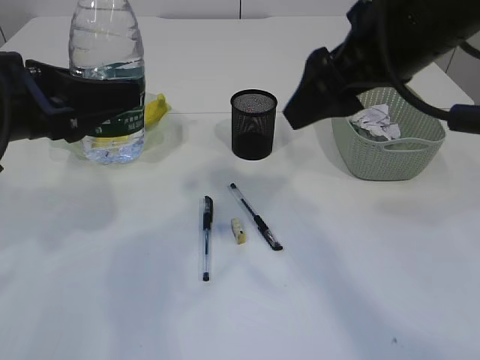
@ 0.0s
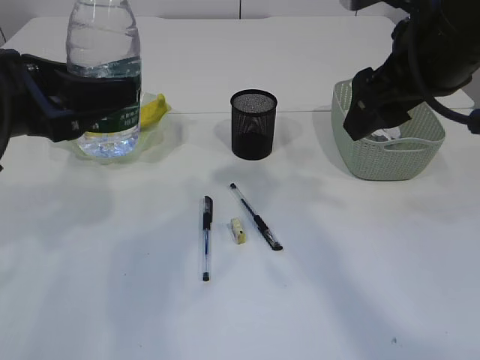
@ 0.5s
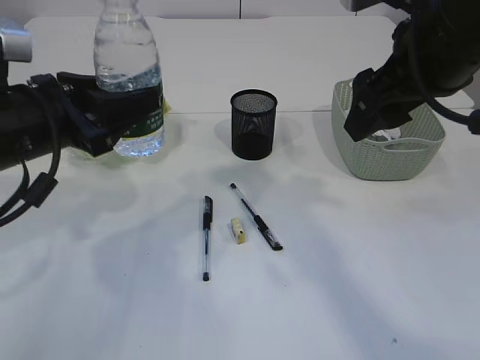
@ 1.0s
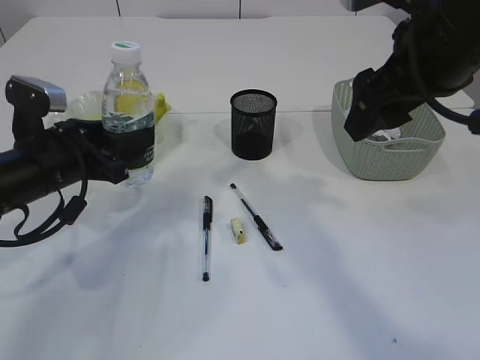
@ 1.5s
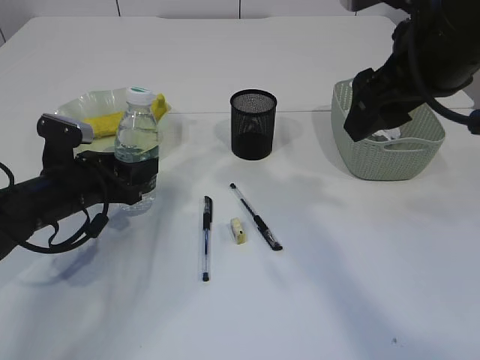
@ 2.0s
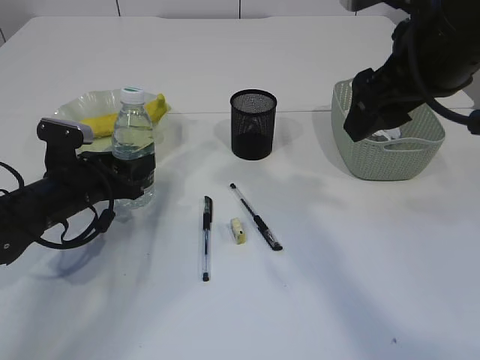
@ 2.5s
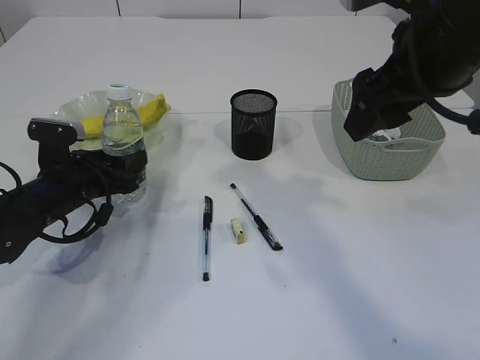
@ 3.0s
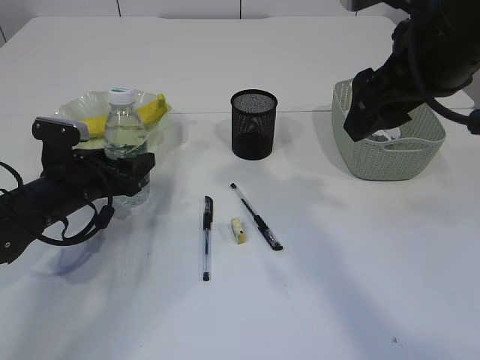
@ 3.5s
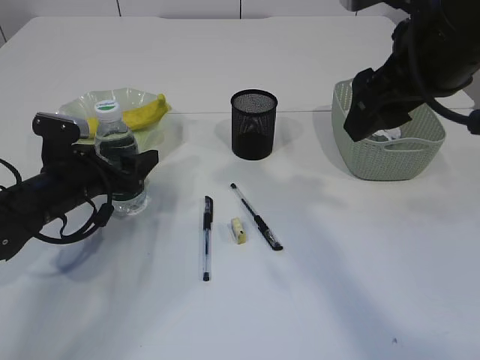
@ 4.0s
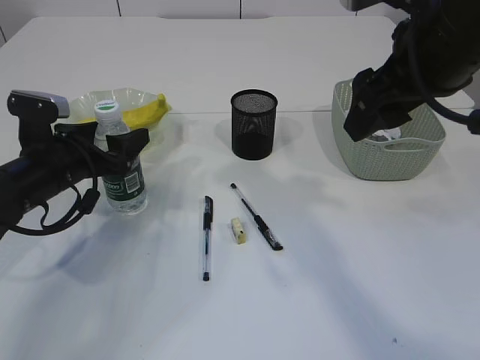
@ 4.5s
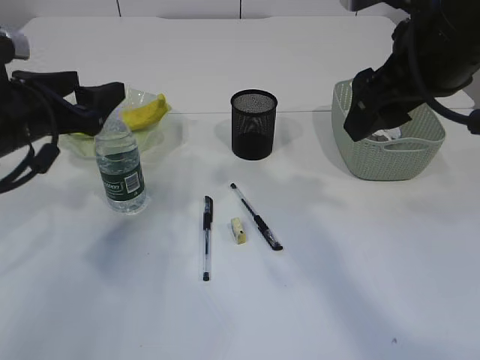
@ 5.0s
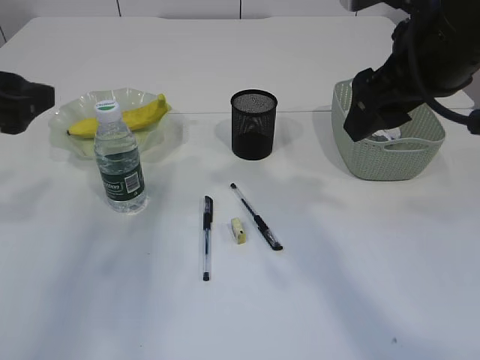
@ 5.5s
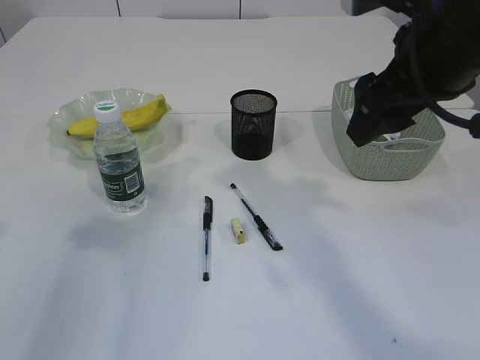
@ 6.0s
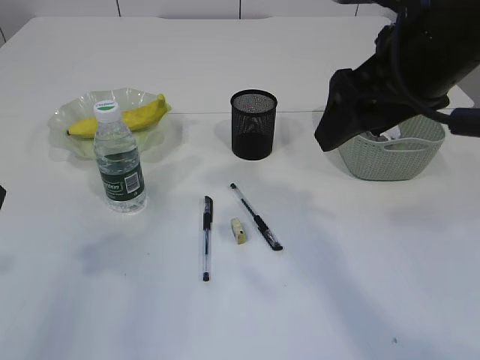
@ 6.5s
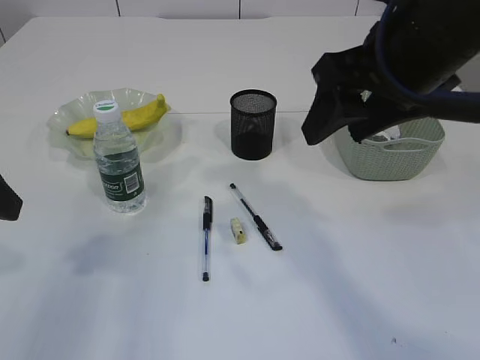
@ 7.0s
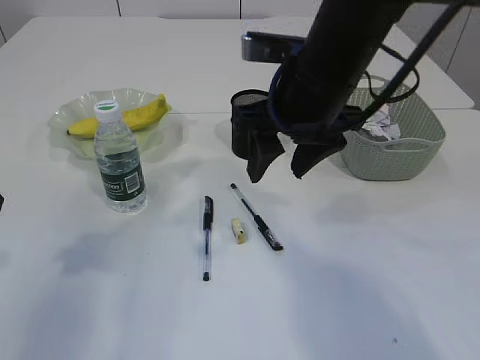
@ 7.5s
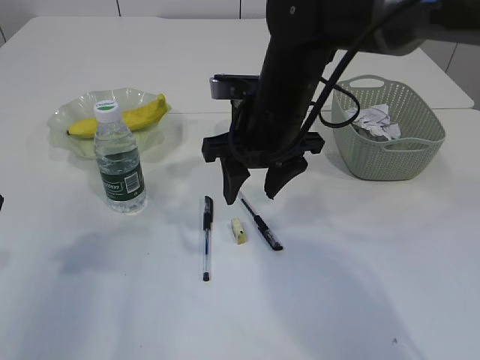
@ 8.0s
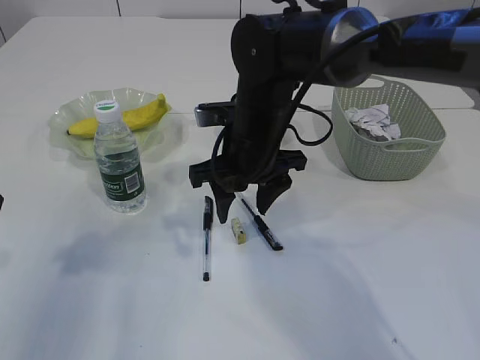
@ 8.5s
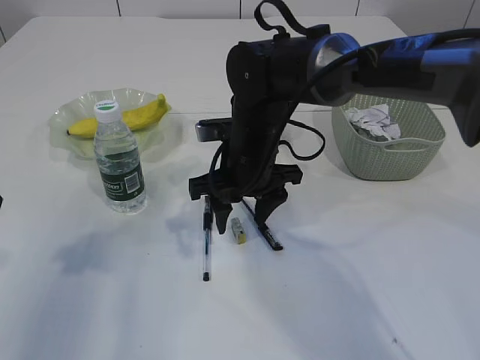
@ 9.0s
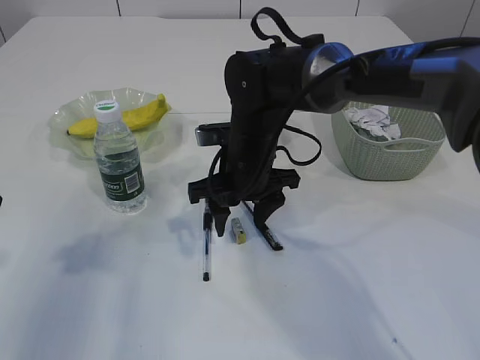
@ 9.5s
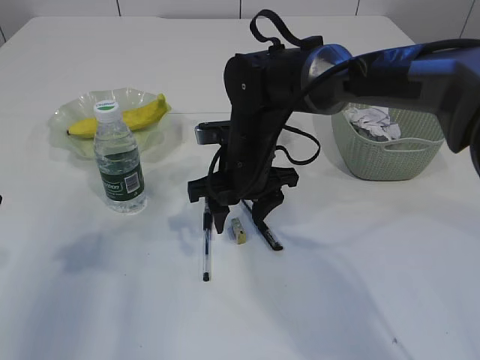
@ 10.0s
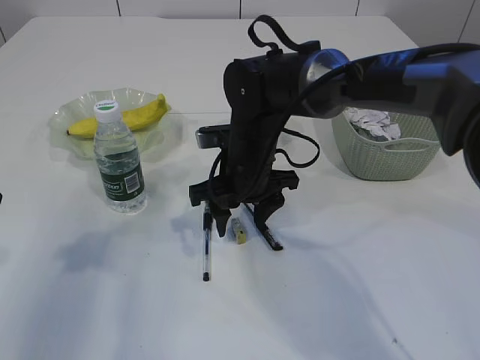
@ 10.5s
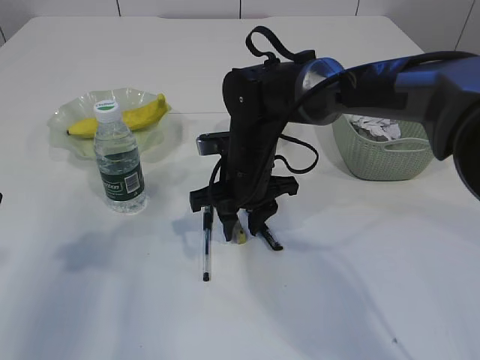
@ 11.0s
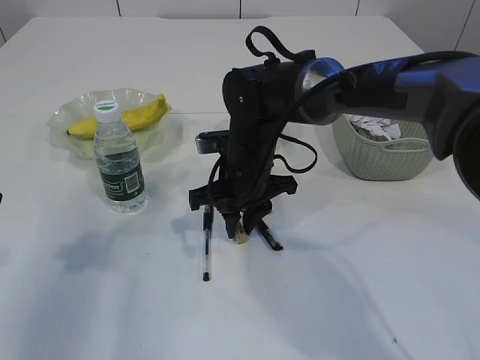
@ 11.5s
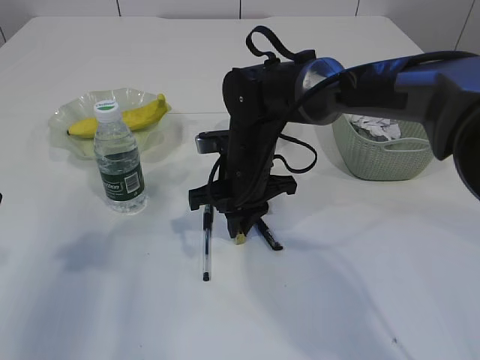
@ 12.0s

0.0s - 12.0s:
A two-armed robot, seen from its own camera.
Step, 0.0s - 5.0s: Place the bottle.
0.0s - 2.0s: The left gripper heads downward and forward, covering roughly 20 cm.
2.0s - 4.0s: The left gripper opens.
4.0s - 6.0s: The left gripper is displaced upward and backward by approximately 25 cm.
6.0s - 8.0s: The right gripper travels to the left, downward and forward by some 20 cm.
8.0s - 10.0s: The right gripper heads downward, covering approximately 5 cm.
10.0s - 12.0s: The right gripper closes up.

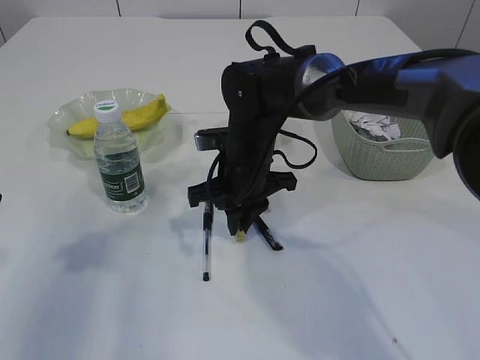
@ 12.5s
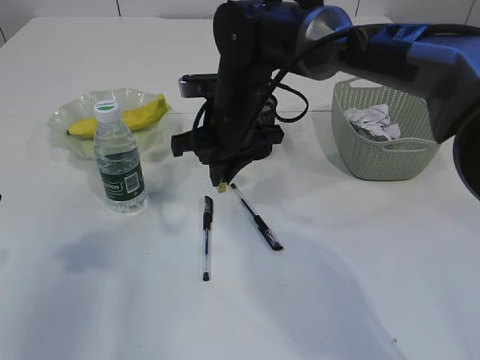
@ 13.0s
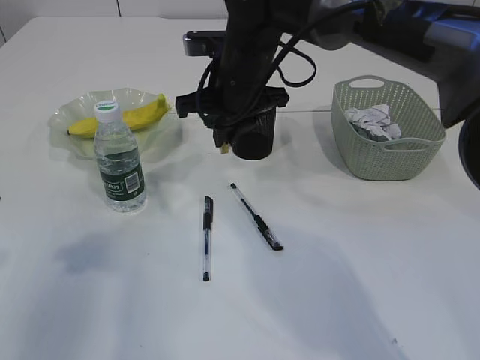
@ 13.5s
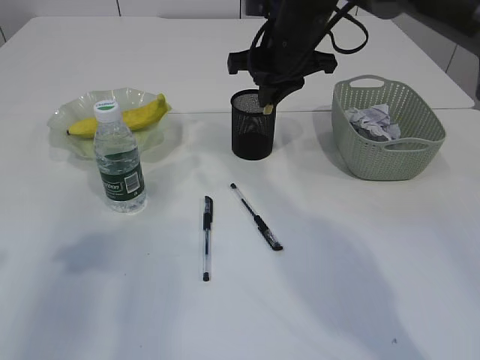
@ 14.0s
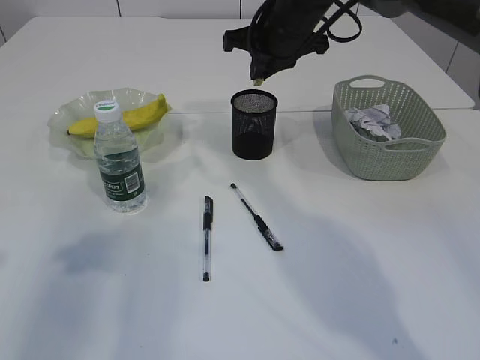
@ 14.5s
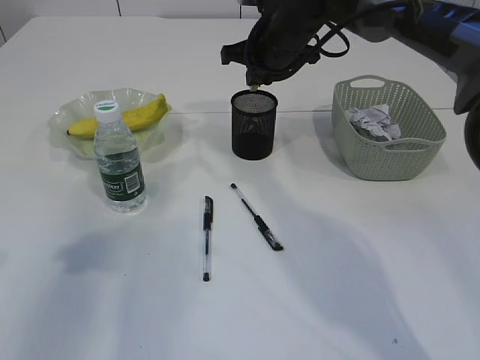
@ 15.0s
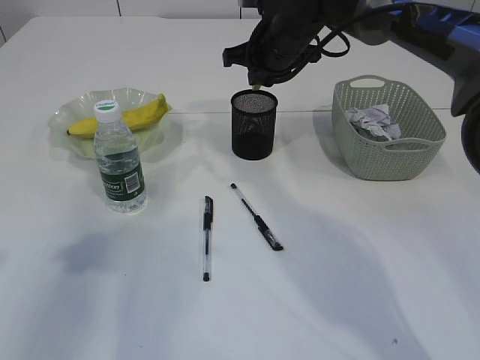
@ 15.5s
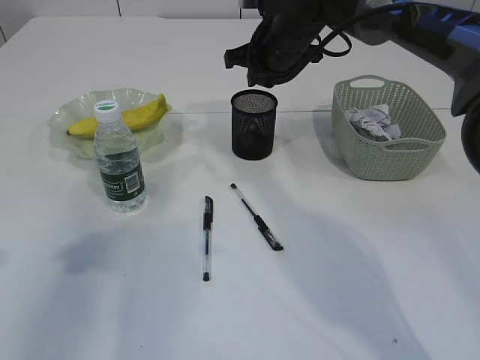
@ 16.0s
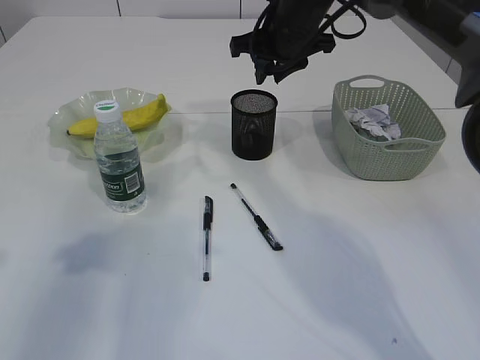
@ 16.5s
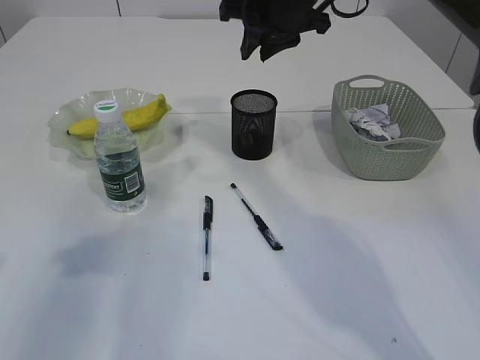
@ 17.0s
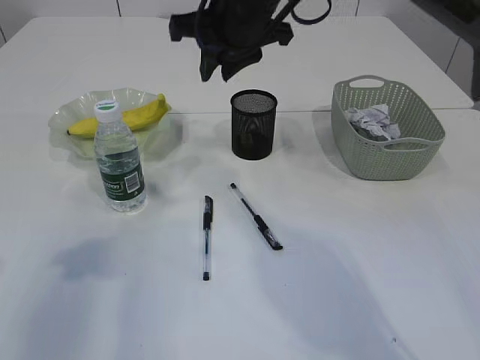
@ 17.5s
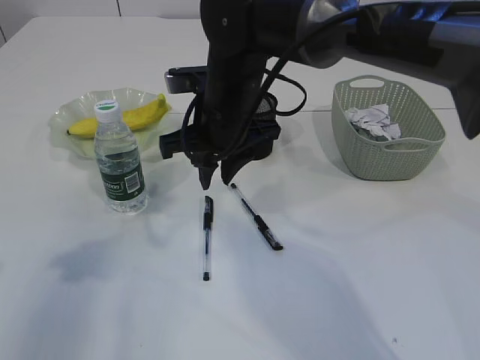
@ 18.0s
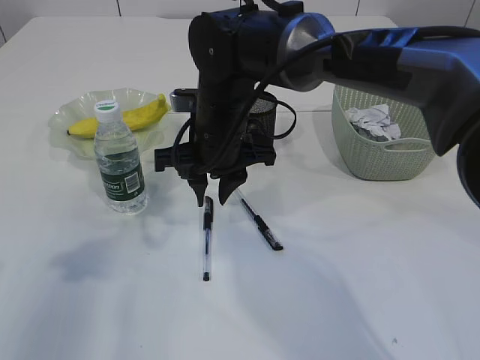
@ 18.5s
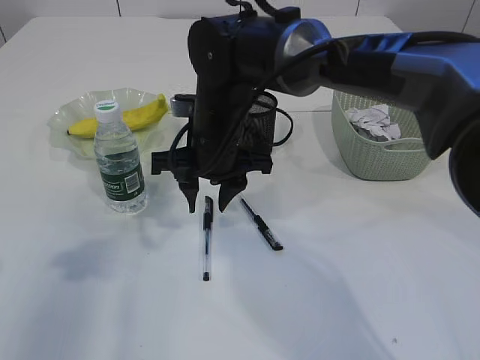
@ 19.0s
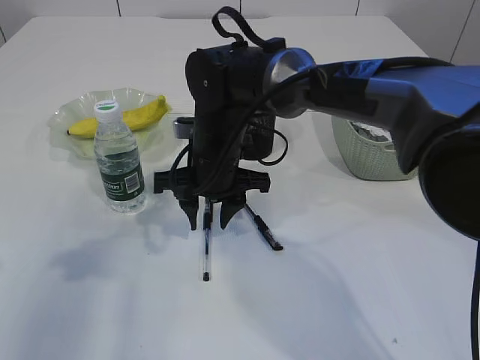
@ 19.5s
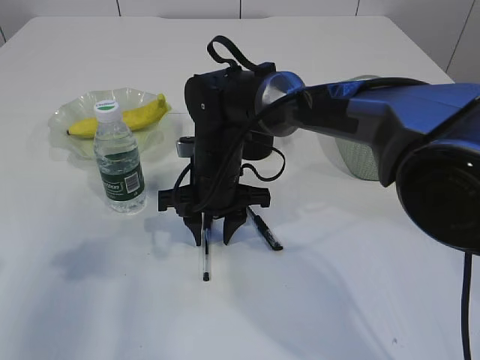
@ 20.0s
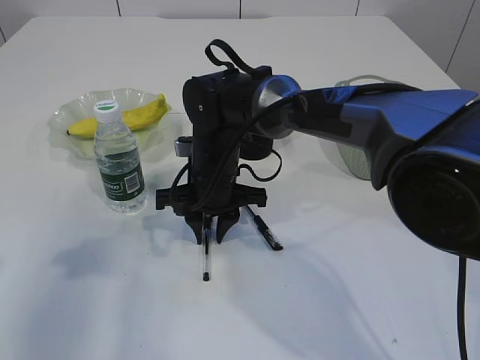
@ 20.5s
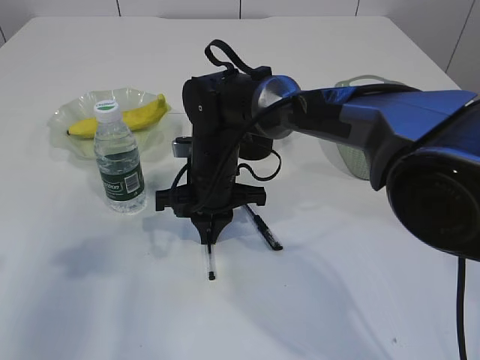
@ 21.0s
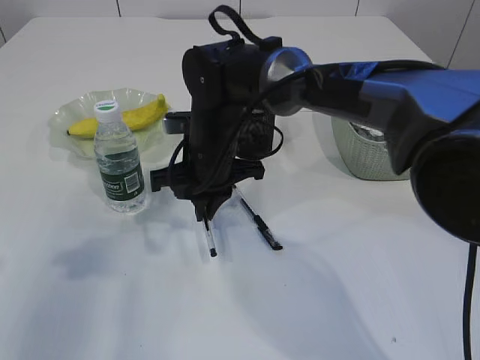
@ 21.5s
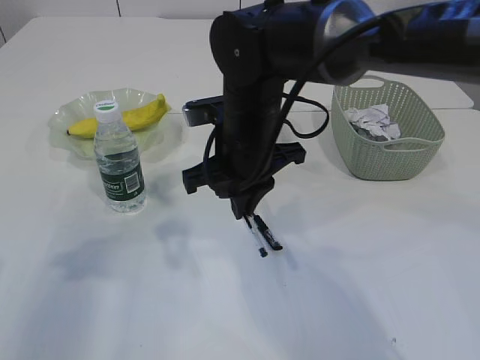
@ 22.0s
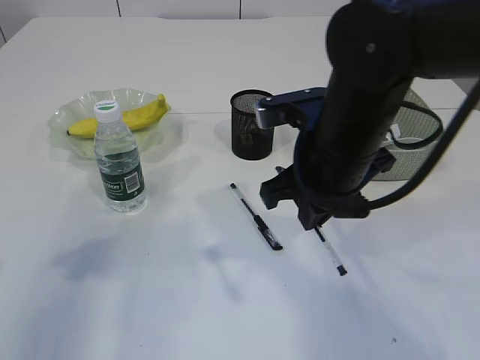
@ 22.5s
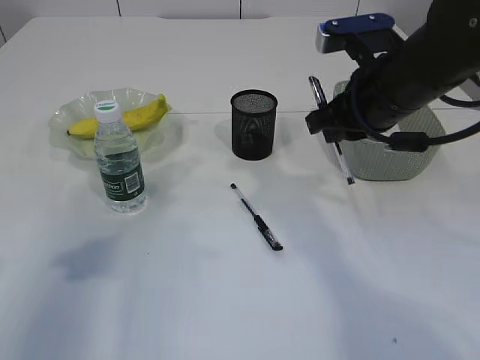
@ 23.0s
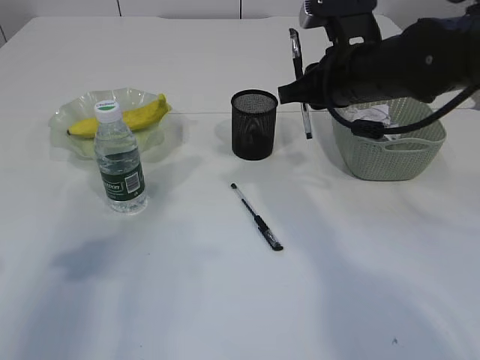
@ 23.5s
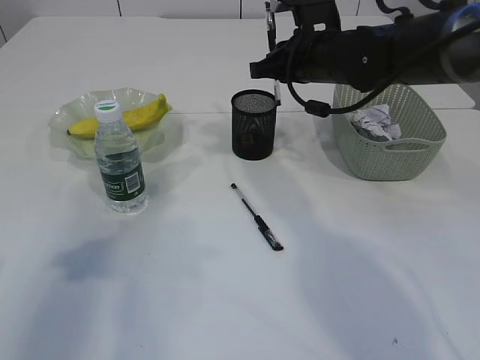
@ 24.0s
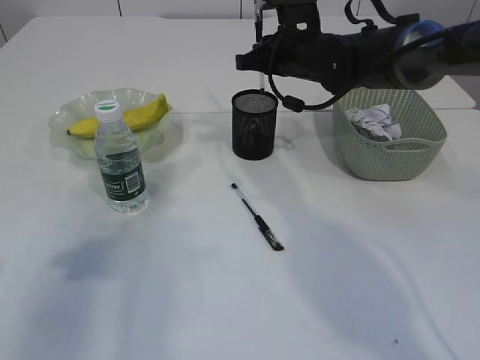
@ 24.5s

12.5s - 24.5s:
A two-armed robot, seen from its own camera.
Step, 13.0s - 16.5s: Place the eraser into the pen holder.
Step, 17.0s - 21.5s: Pick up the pen with right arm.
12.5s - 14.5s: The right gripper goes about 20 cm upward, forward and to the right.
14.5s - 16.5s: There are only small adjustments of the grippers.
16.5s - 18.5s: The right gripper moves backward, to the left and downward, approximately 15 cm.
18.5s - 20.5s: The right gripper moves downward, approximately 5 cm.
20.5s - 22.5s: The right gripper is displaced to the right, upward and backward by about 20 cm, and closes.
22.5s - 24.5s: The right gripper is displaced forward by approximately 20 cm.

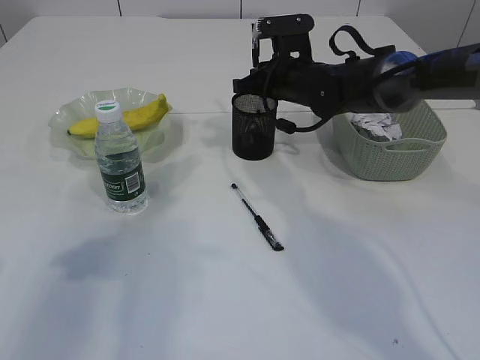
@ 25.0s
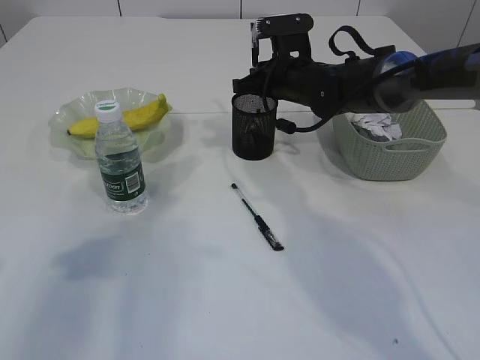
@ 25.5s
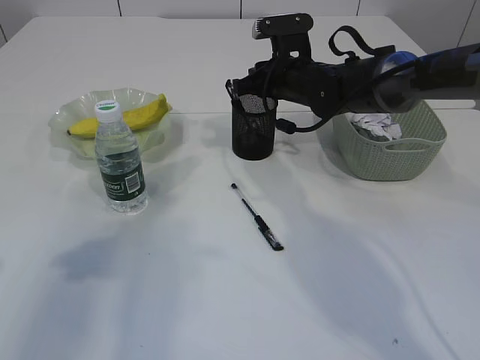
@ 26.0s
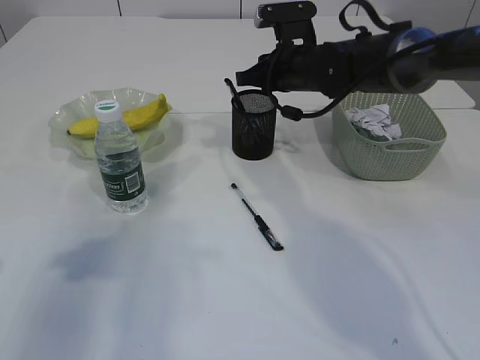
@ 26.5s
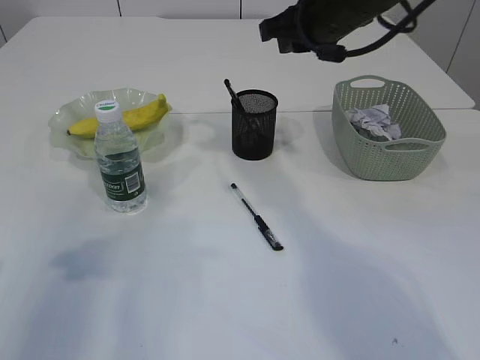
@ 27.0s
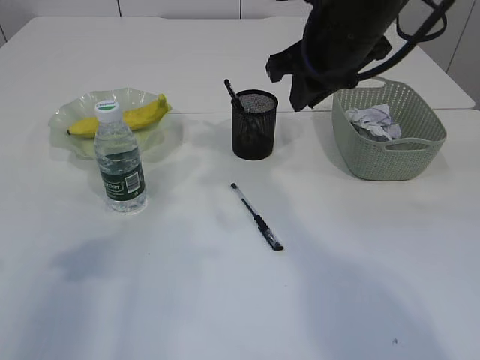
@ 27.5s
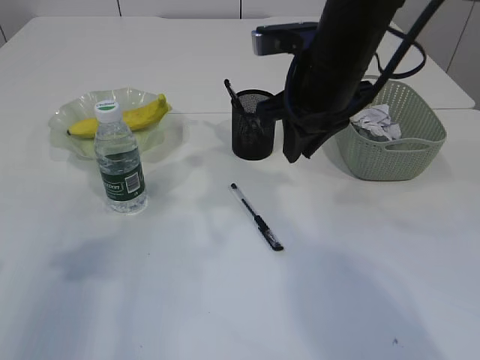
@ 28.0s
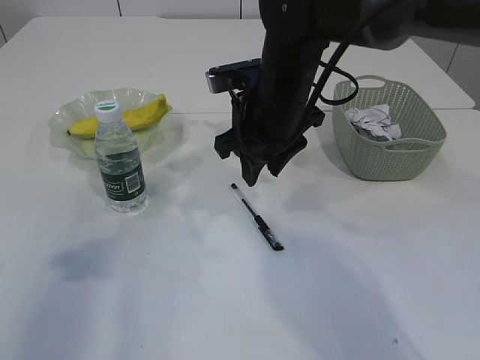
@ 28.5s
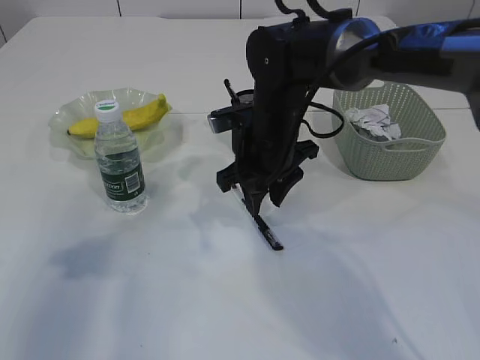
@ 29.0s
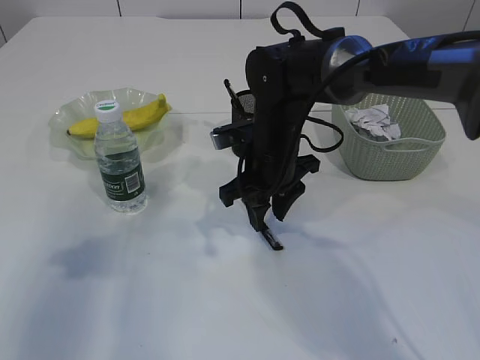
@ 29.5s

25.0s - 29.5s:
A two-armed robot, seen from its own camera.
25.0s - 27.0s: The right gripper heads upward and backward, covering some 15 cm.
27.0s - 29.5s: The right gripper goes about 15 cm downward and to the left.
